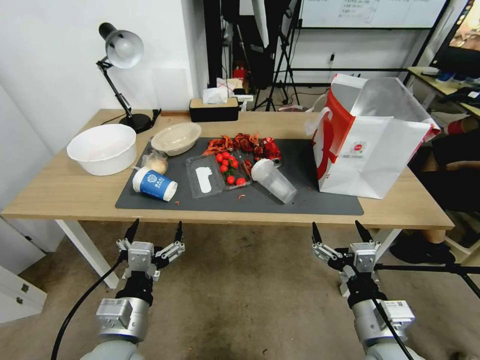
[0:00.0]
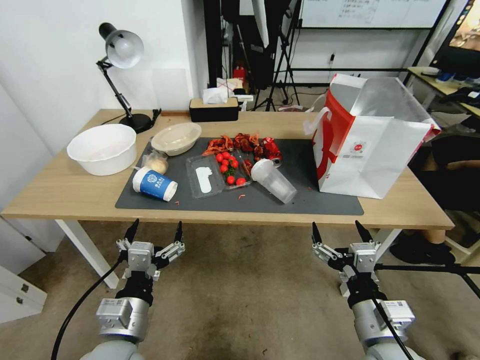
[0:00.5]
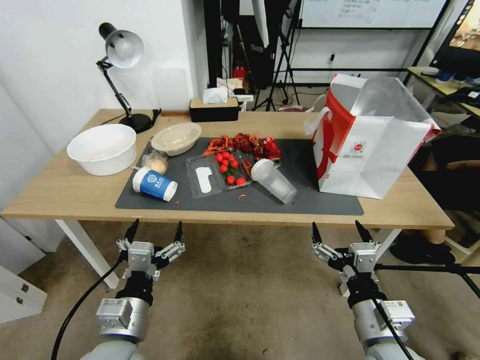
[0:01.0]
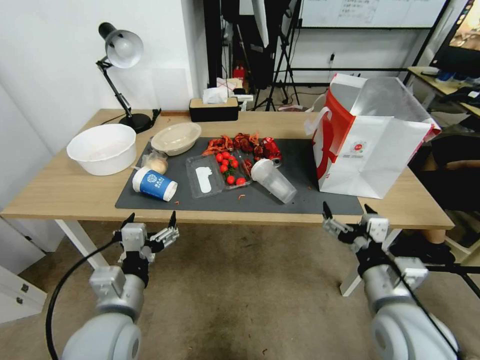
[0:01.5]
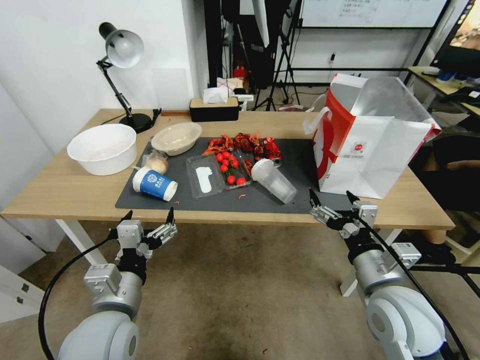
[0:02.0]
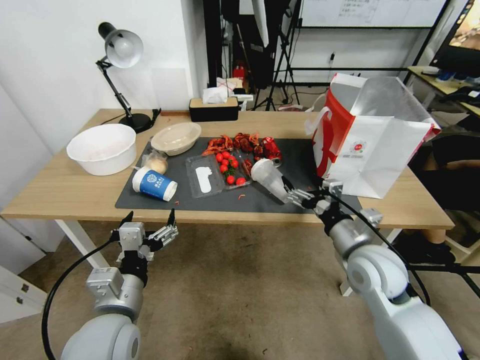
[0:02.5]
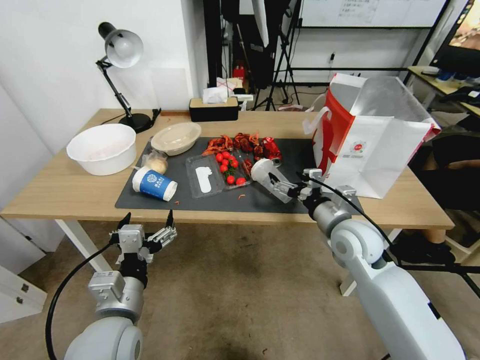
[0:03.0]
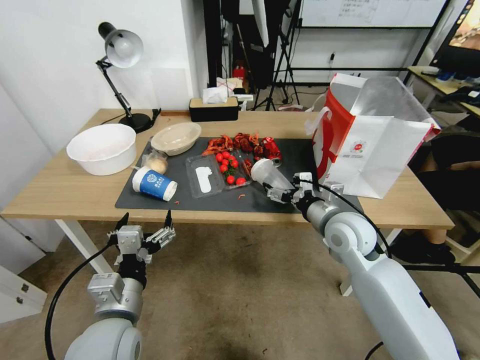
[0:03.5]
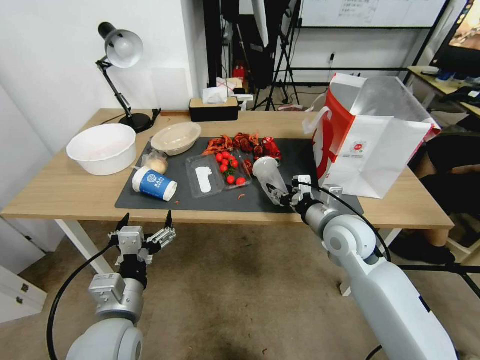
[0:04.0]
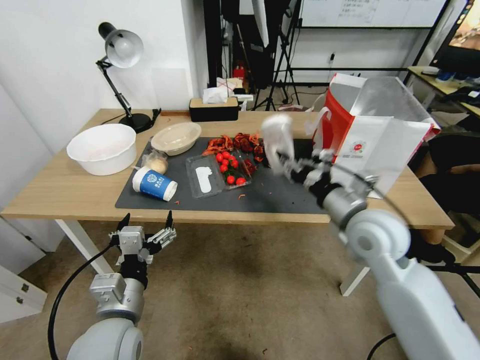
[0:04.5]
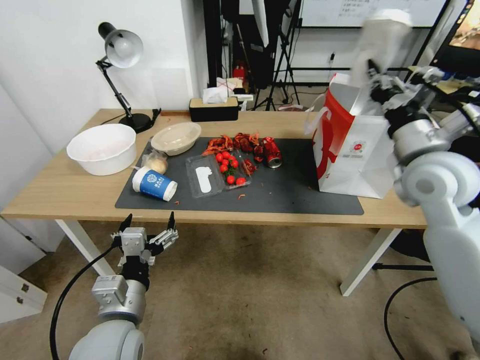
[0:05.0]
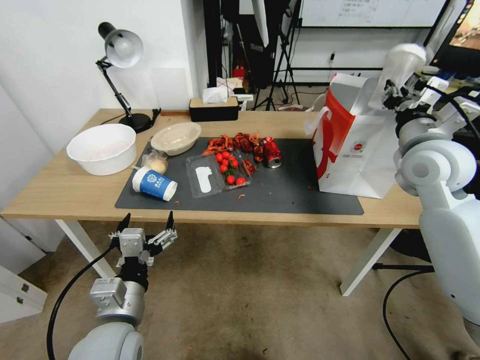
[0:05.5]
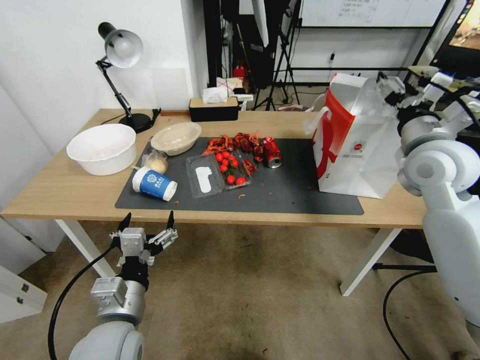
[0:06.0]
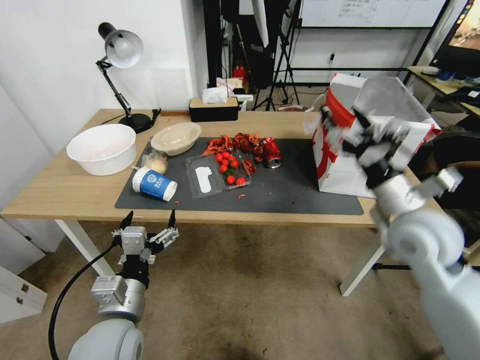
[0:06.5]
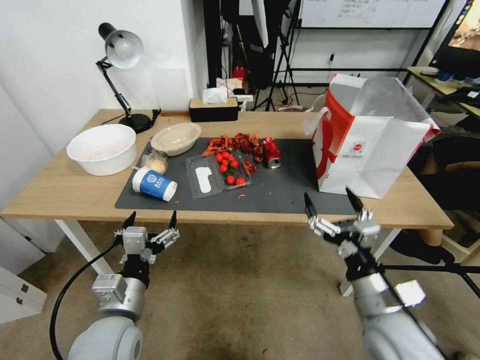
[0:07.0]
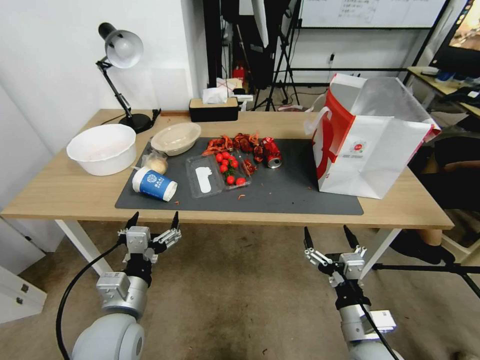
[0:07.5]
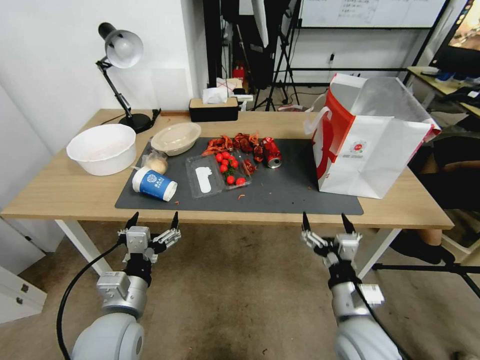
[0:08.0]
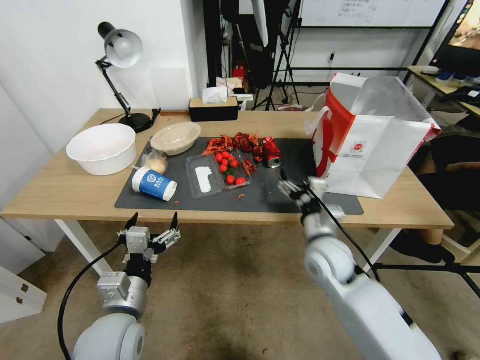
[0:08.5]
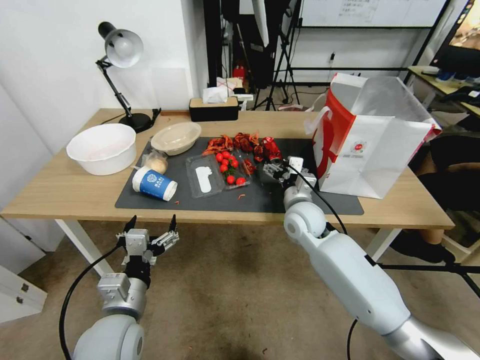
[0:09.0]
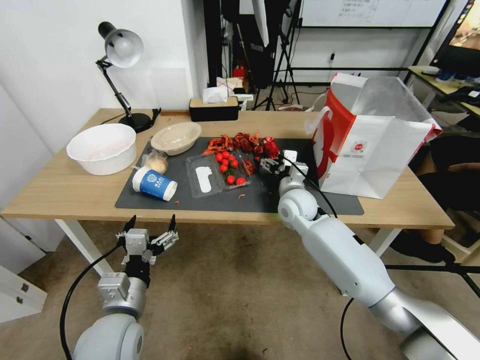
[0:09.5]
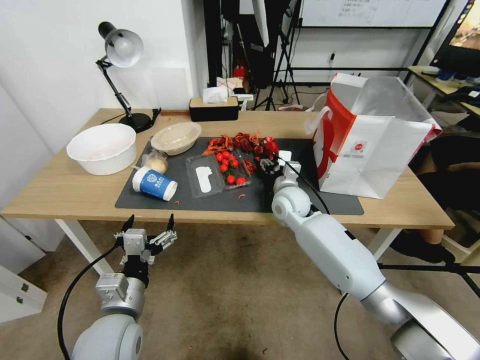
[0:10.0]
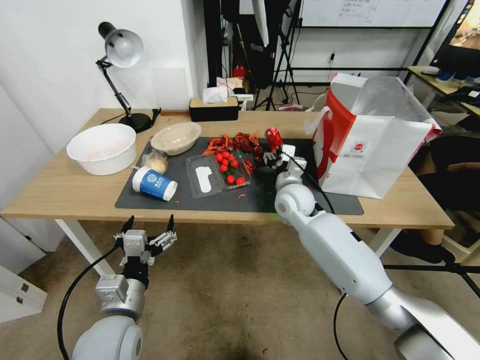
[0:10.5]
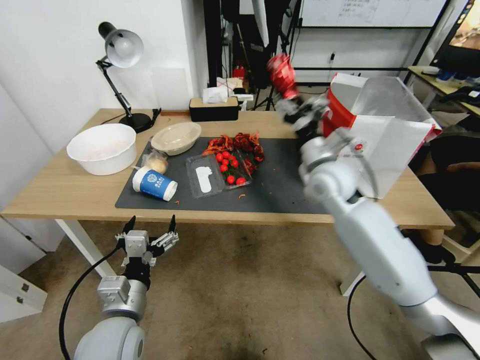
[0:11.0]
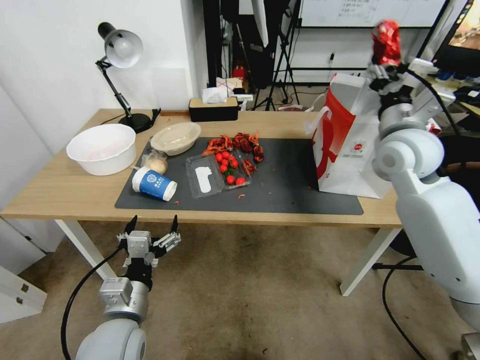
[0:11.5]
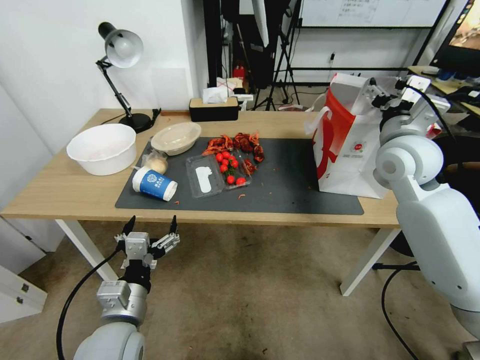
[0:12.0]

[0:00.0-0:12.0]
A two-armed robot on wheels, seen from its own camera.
0:02.0 to 0:04.0: The right gripper moves forward, some 15 cm, and closes up.
0:04.0 to 0:06.0: The right gripper goes roughly 20 cm upward and to the right, and opens.
0:06.0 to 0:08.0: The right gripper is displaced downward, backward and to the left by roughly 35 cm.
0:08.0 to 0:10.0: The right gripper heads forward, covering about 30 cm, and closes.
0:10.0 to 0:12.0: The right gripper heads upward and to the right, covering about 25 cm.

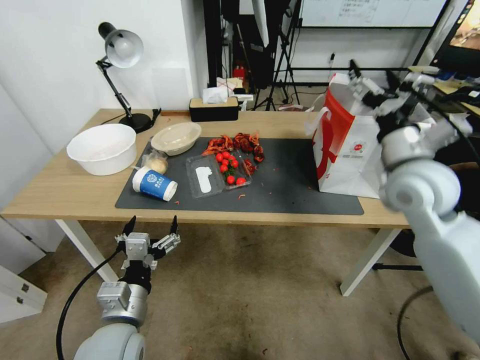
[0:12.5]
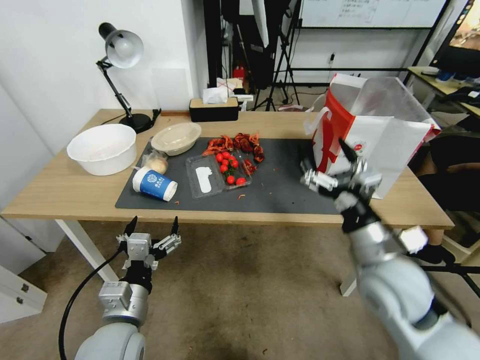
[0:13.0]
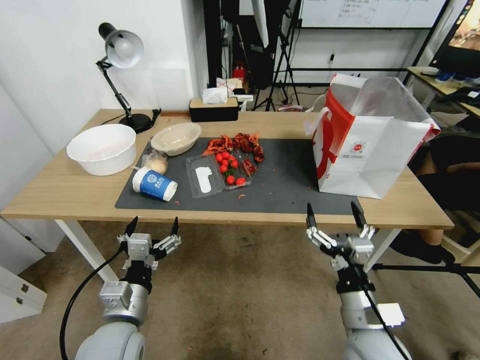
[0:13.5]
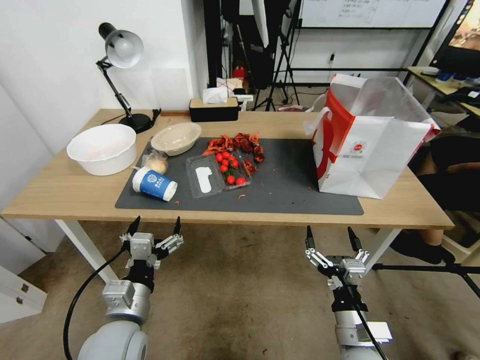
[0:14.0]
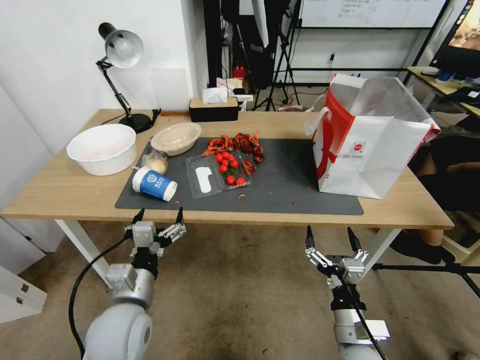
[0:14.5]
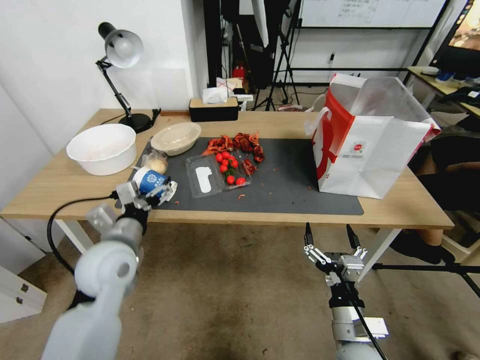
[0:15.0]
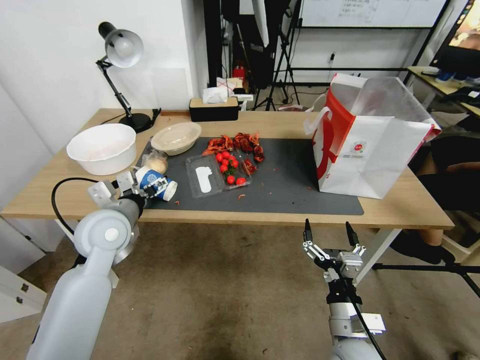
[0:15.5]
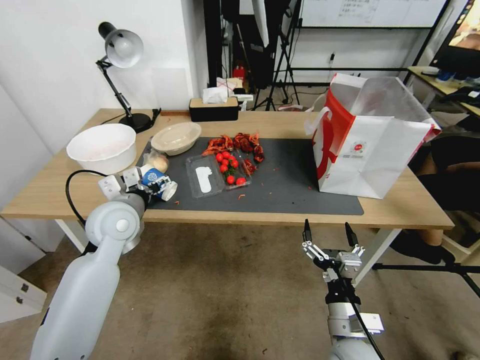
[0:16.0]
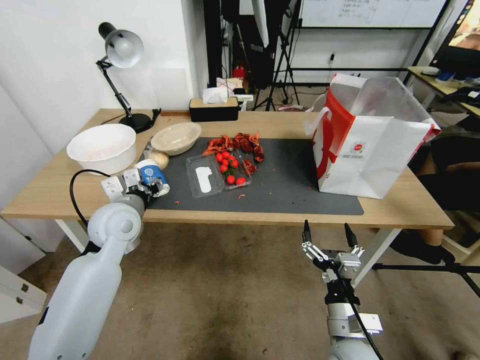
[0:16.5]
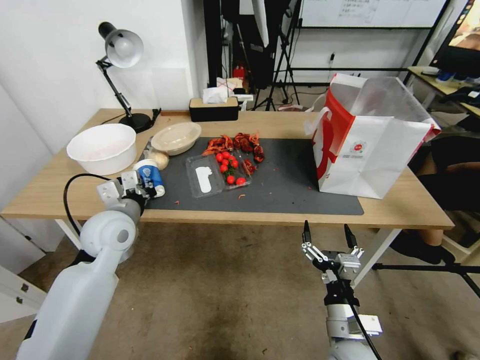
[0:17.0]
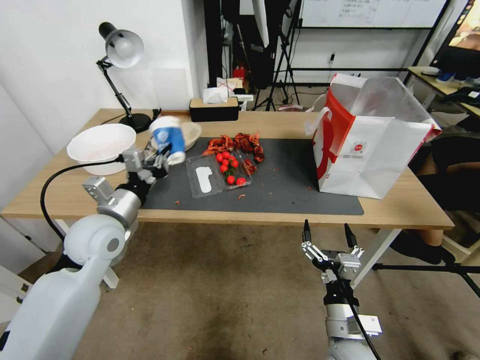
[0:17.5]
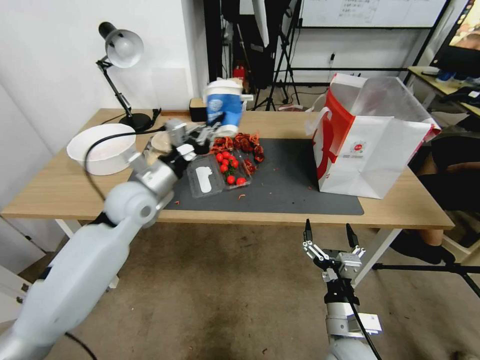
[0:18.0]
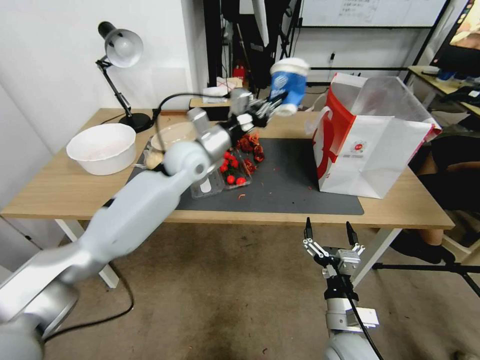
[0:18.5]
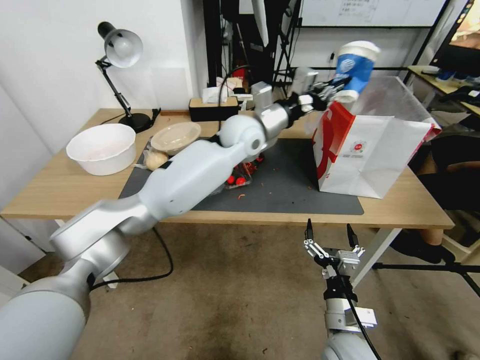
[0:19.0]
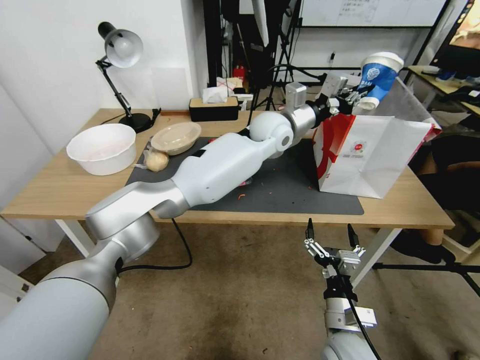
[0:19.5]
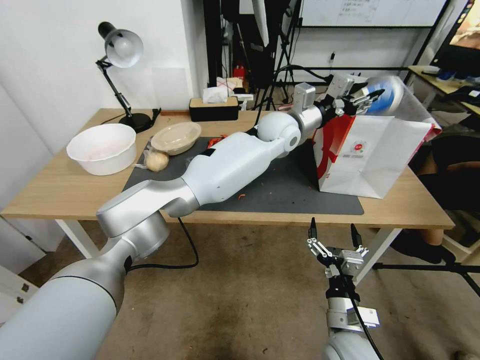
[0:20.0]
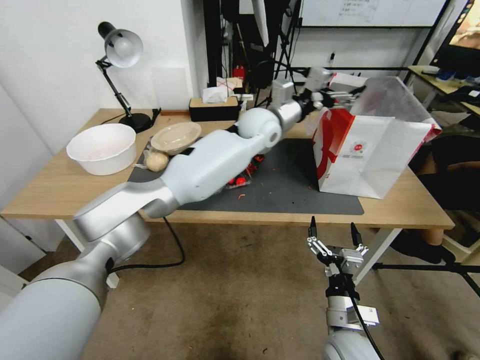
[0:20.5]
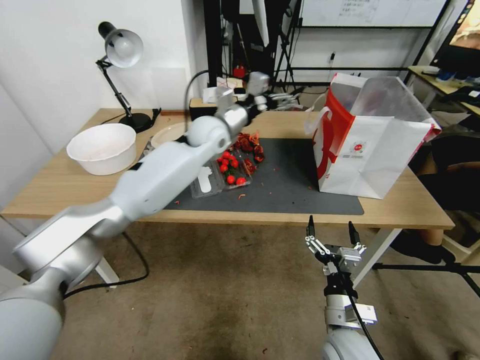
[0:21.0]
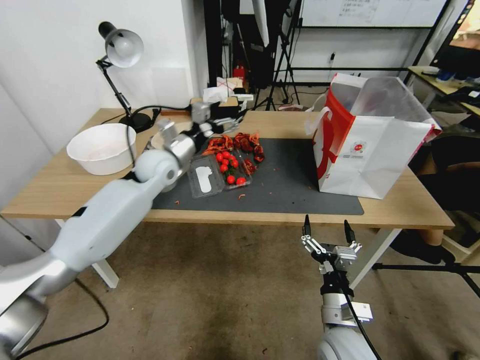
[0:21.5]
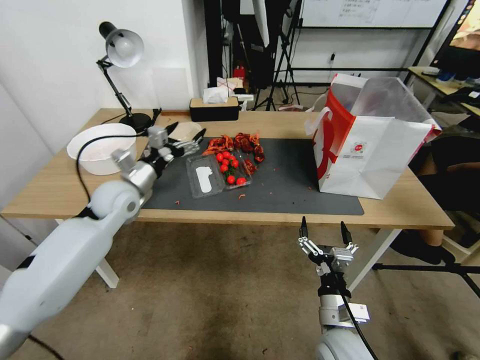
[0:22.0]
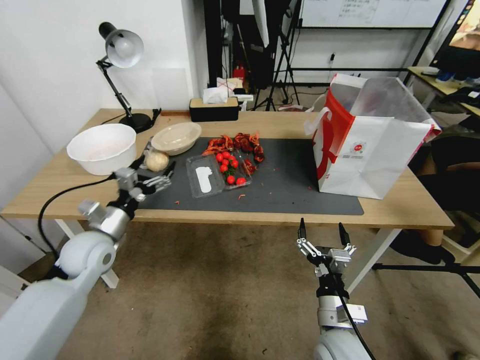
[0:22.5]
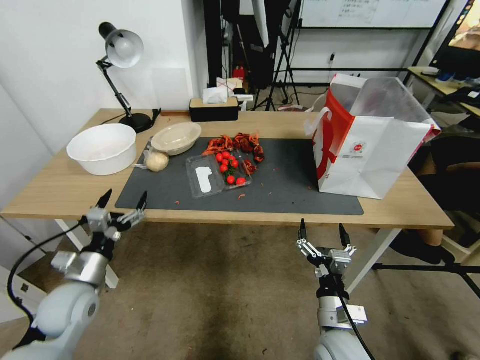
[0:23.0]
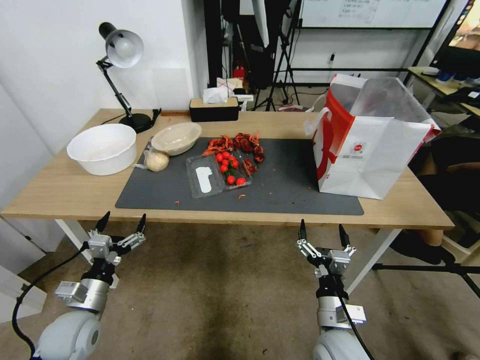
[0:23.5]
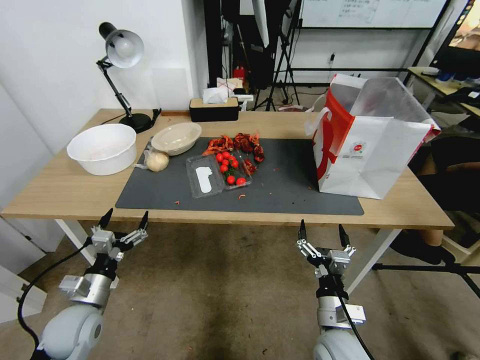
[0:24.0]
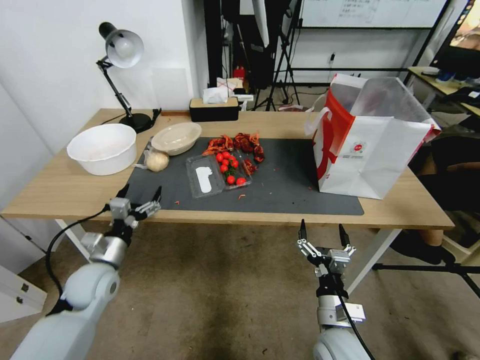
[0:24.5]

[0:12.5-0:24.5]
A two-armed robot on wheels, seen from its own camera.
0:12.5 to 0:14.5: The right gripper goes roughly 35 cm downward and backward.
0:14.5 to 0:16.5: The left gripper heads forward and upward, covering some 20 cm, and closes up.
0:16.5 to 0:18.5: The left gripper shifts roughly 20 cm to the right, forward and upward, and closes.
0:18.5 to 0:20.5: The left gripper moves to the right, some 20 cm, and opens.
0:20.5 to 0:22.5: The left gripper goes approximately 50 cm to the left, backward and downward.
0:22.5 to 0:24.5: The left gripper is displaced downward and backward by about 10 cm.

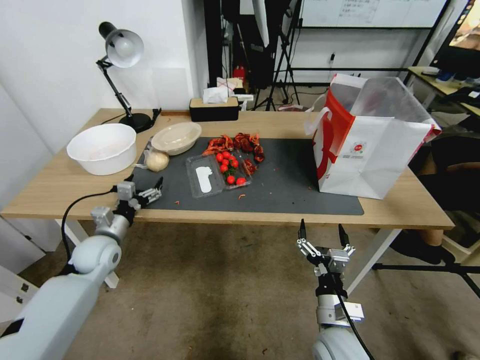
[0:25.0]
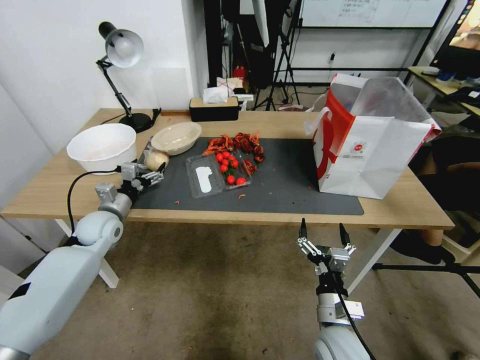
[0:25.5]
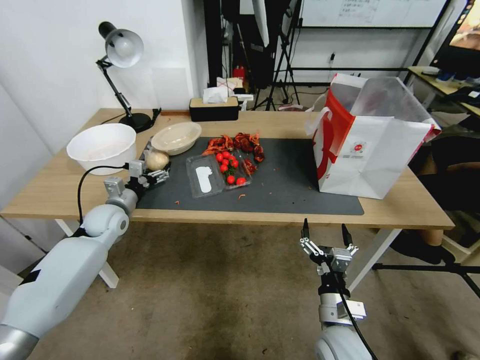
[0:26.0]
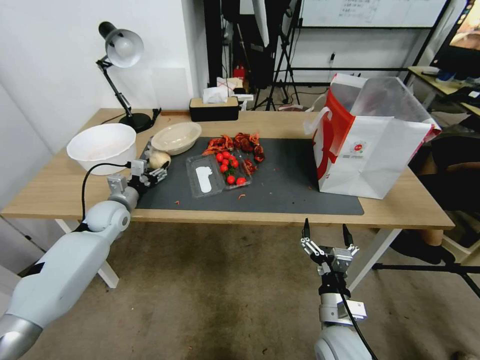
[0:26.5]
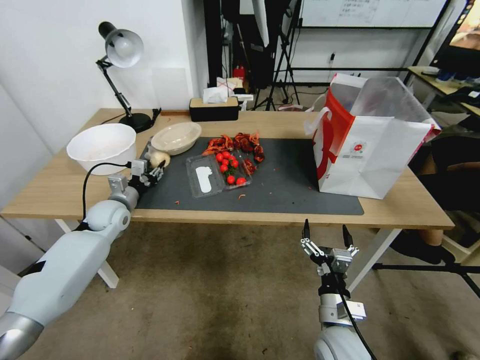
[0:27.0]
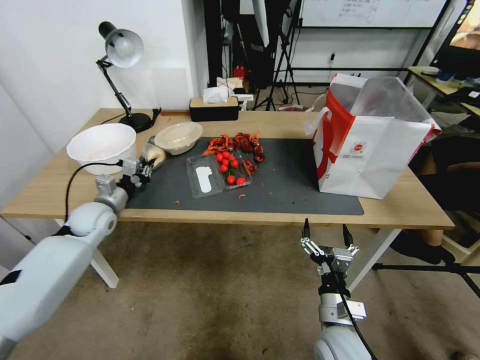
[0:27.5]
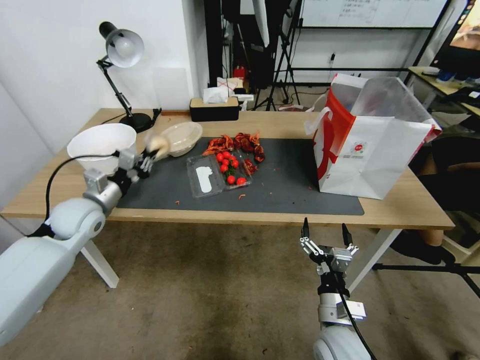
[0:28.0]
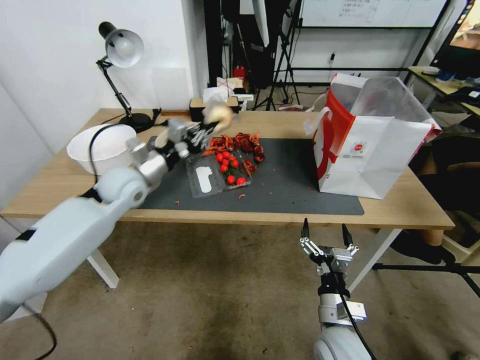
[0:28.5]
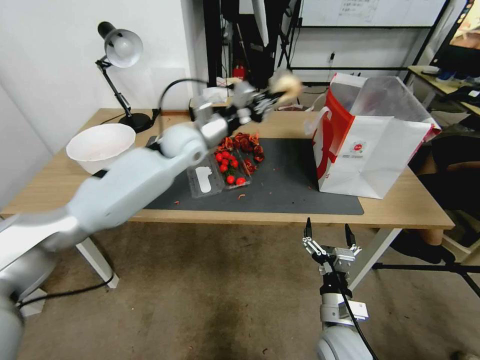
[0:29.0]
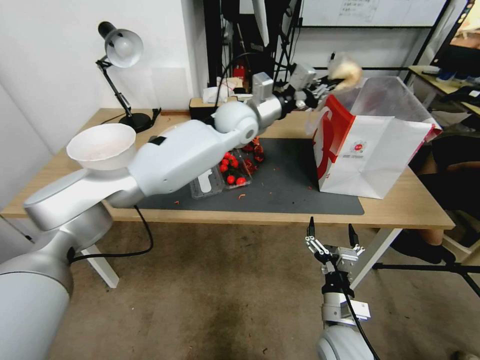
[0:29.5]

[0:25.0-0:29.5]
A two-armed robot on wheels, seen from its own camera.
0:25.0 to 0:27.0: The left gripper moves forward, about 10 cm, and closes up.
0:27.0 to 0:29.5: The left gripper shifts some 40 cm to the right and upward.
